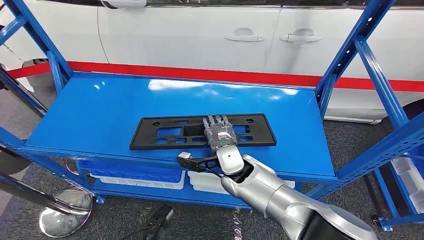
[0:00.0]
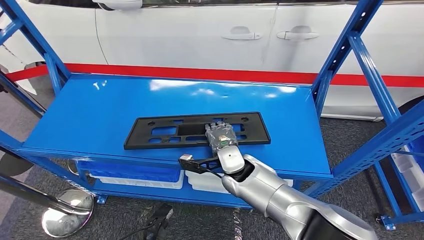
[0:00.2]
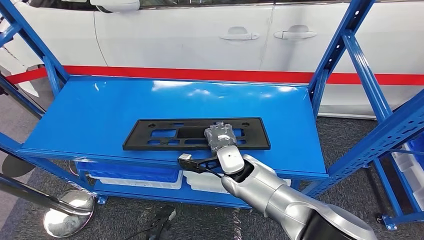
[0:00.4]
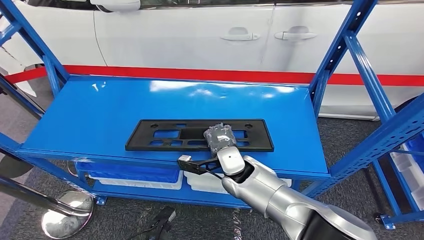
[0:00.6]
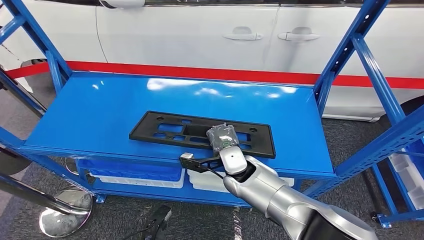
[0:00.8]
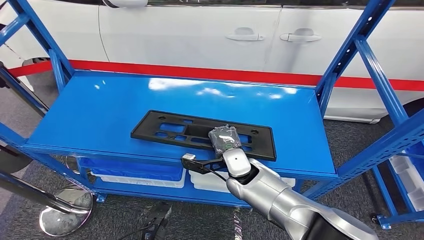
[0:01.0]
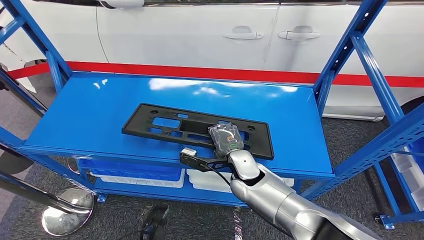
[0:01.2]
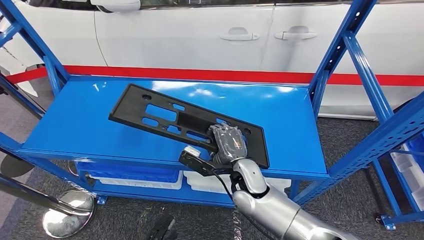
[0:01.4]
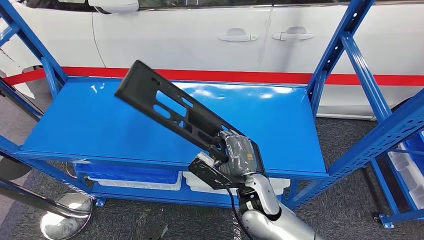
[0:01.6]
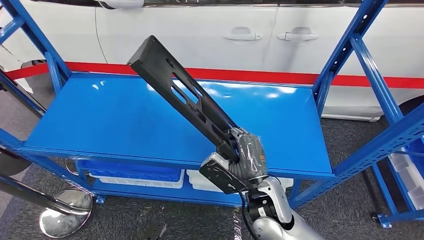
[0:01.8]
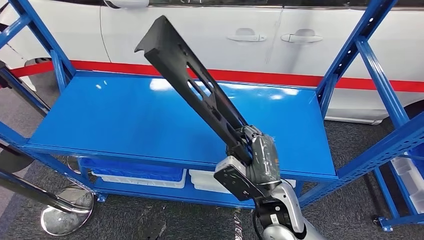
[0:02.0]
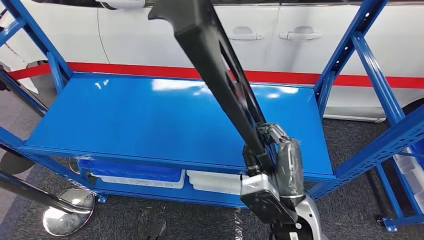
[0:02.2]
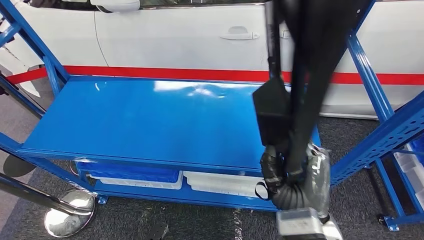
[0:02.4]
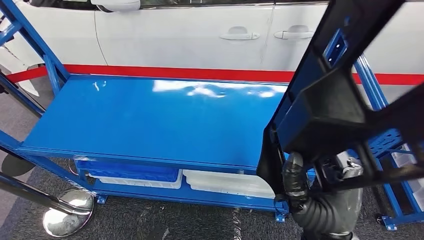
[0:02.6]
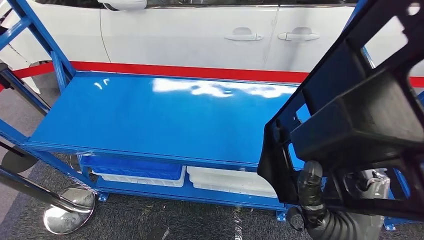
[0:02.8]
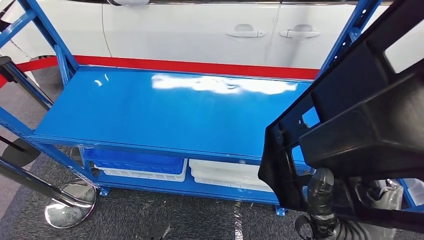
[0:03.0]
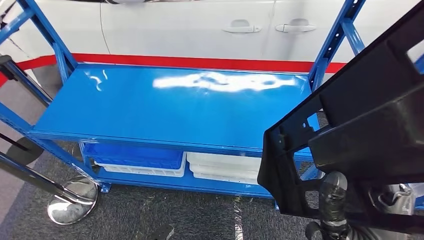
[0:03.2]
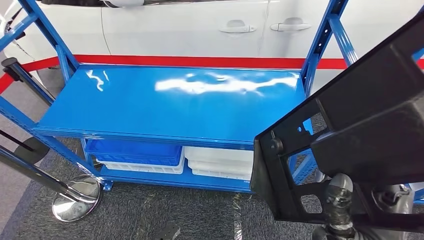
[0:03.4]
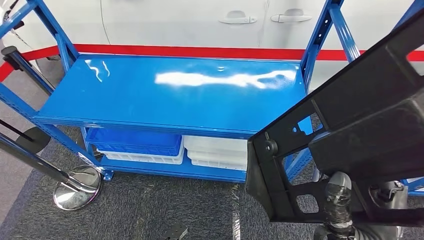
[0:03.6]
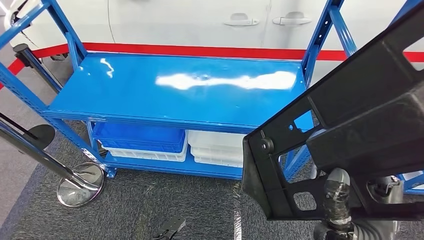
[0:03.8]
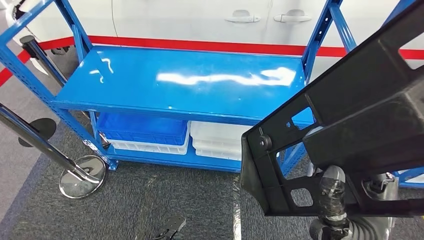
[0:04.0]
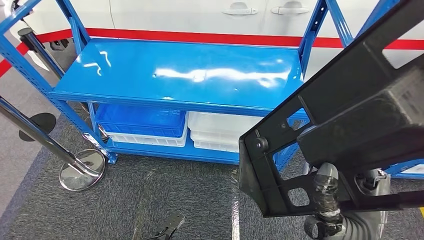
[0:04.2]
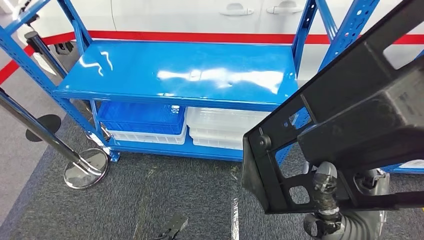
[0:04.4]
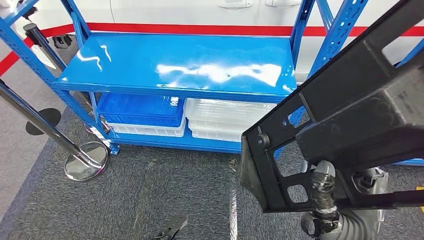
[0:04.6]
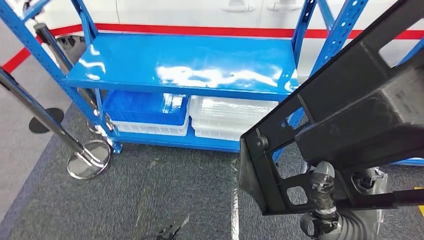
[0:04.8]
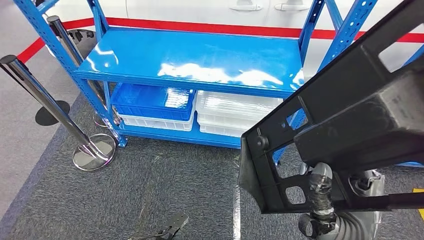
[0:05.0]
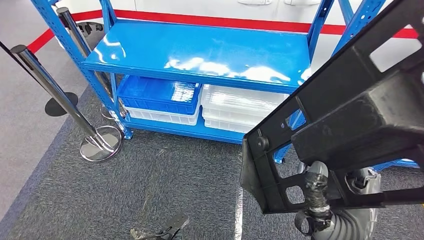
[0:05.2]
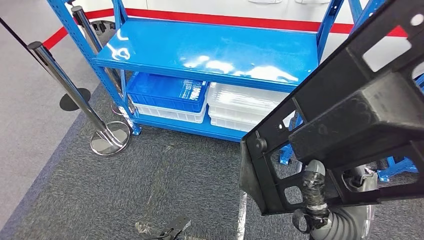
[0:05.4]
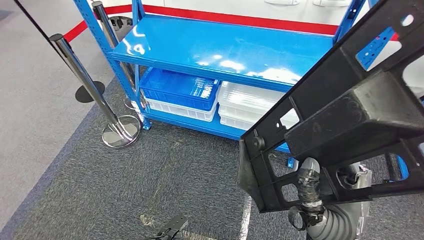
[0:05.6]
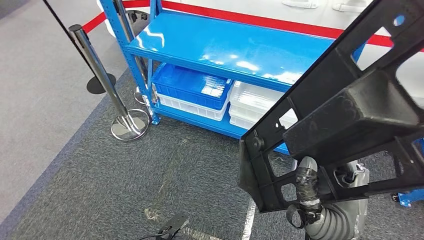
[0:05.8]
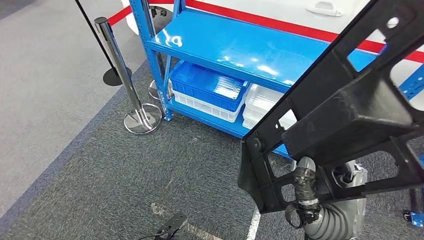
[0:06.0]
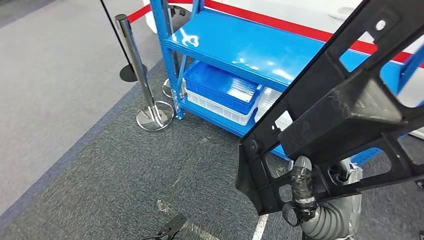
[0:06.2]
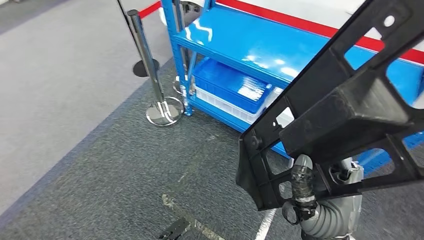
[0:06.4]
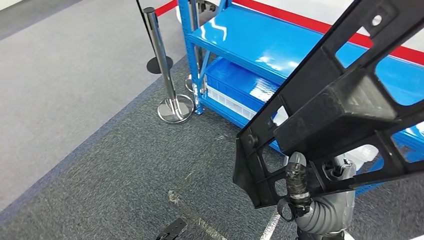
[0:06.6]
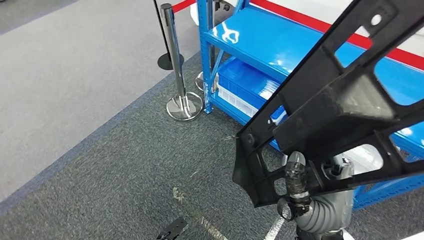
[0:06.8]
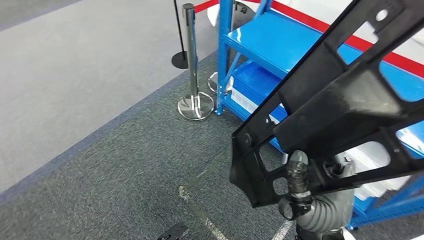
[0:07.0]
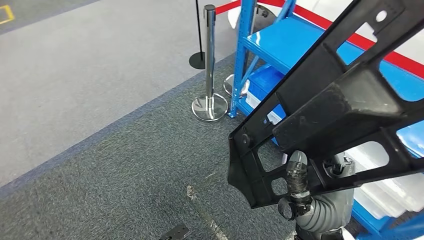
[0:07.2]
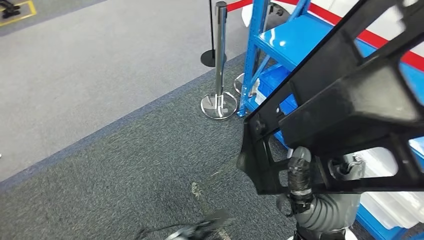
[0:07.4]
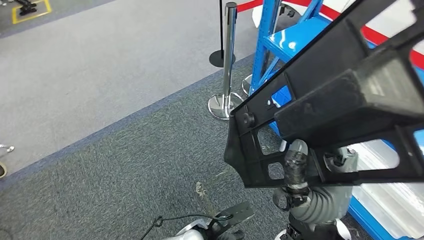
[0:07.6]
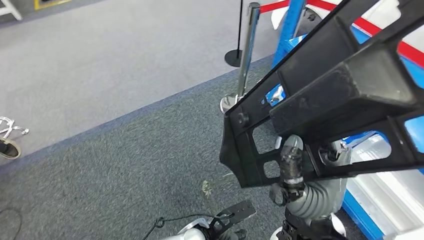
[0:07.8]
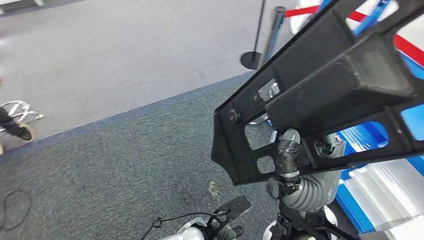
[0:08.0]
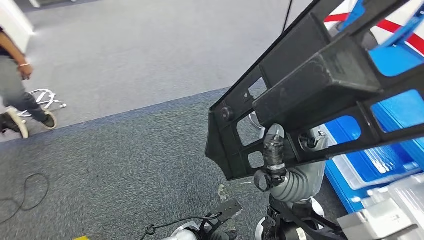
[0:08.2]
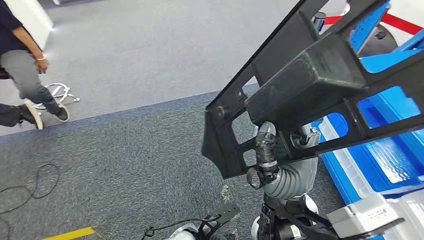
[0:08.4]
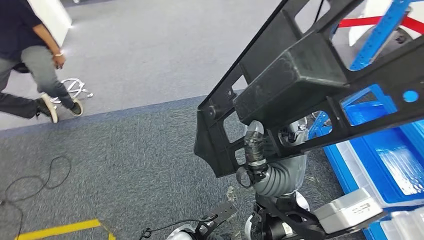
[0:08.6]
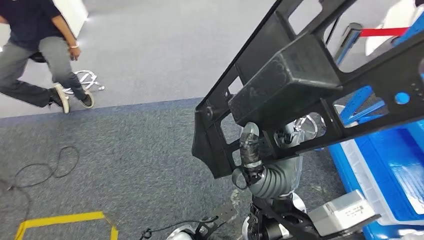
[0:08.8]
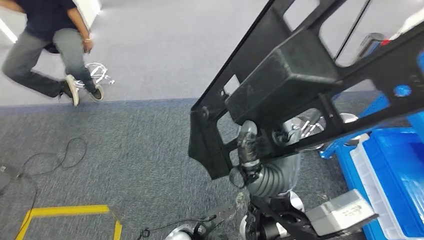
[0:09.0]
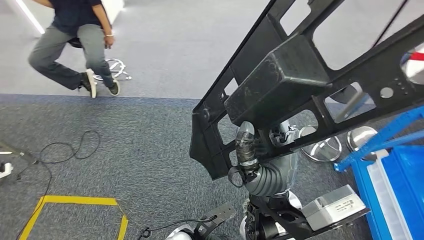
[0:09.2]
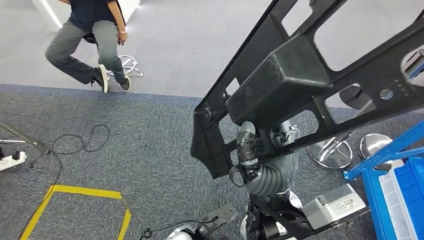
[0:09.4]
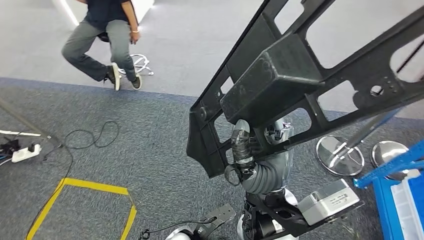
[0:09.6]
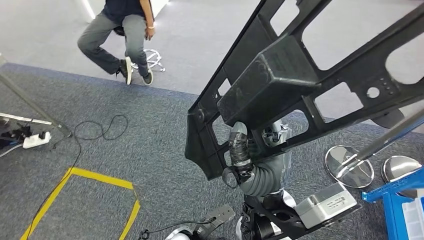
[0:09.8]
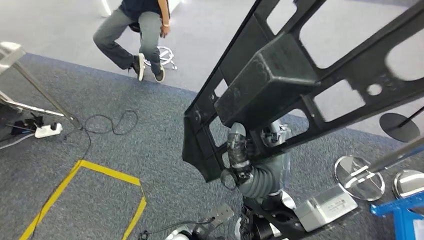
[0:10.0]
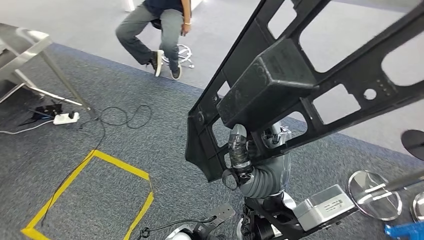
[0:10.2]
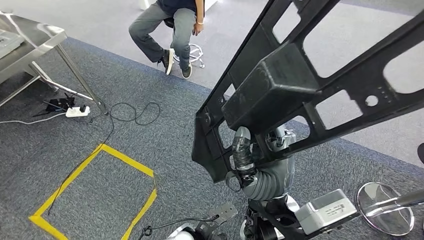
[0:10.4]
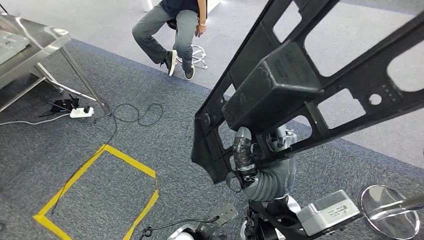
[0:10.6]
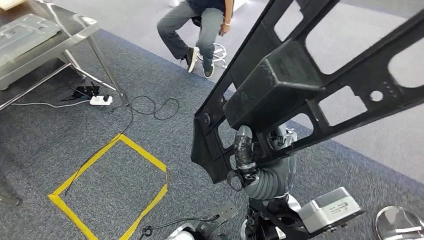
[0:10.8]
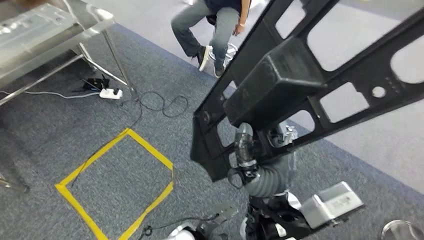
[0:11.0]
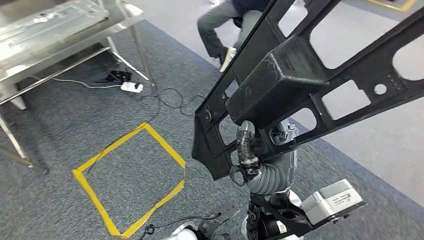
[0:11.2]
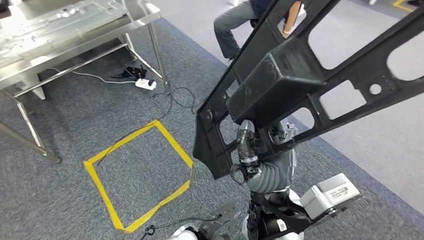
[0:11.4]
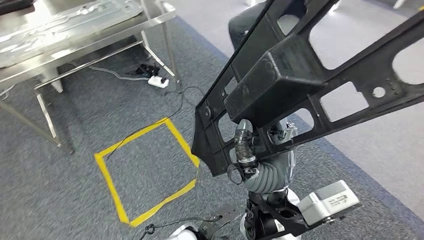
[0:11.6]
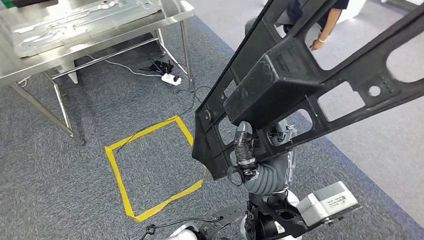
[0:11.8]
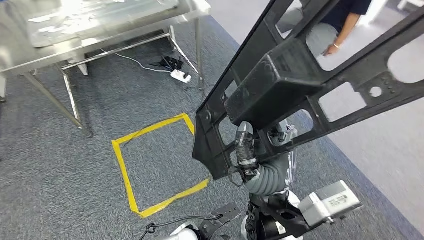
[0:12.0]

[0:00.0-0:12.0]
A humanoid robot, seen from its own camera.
Step, 0:00.0 to 0:03.4: Pick up the large material from the shelf.

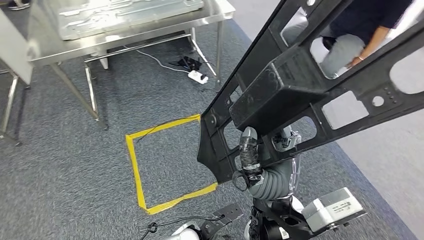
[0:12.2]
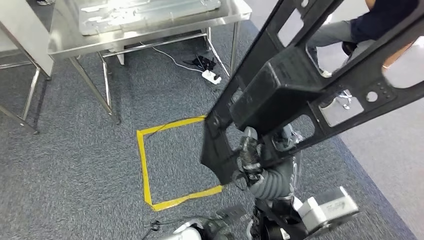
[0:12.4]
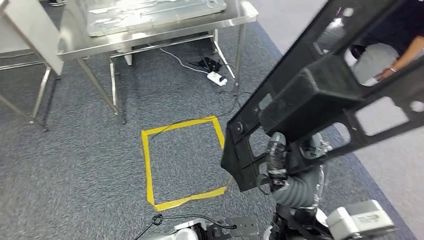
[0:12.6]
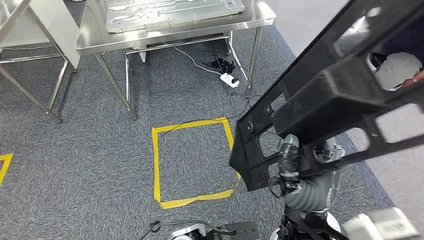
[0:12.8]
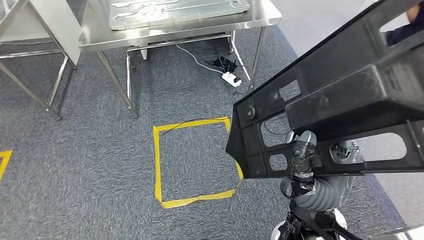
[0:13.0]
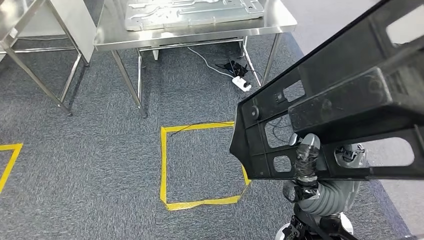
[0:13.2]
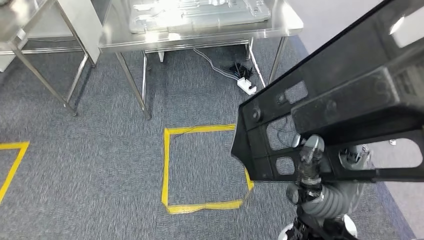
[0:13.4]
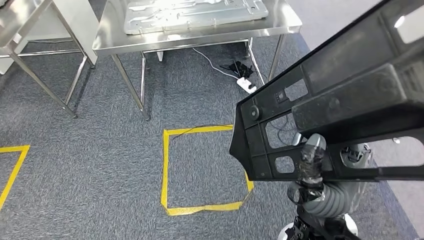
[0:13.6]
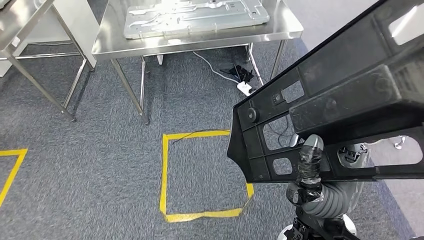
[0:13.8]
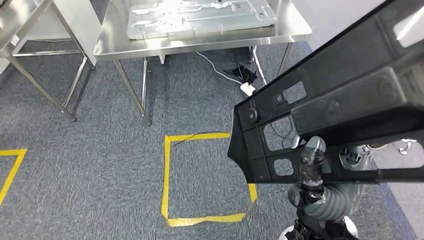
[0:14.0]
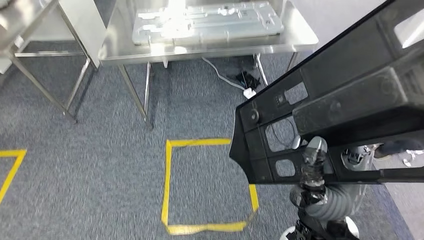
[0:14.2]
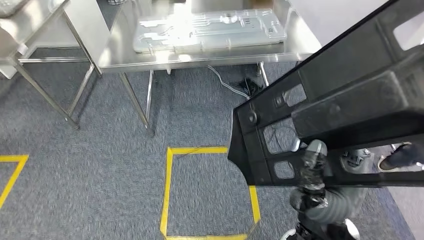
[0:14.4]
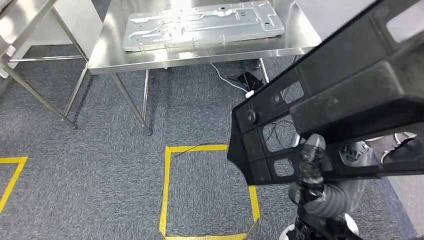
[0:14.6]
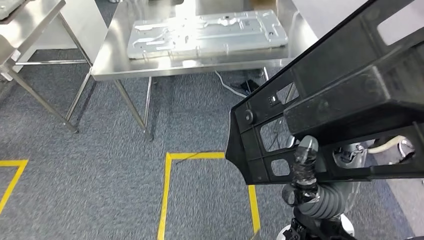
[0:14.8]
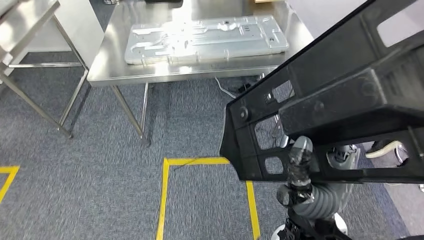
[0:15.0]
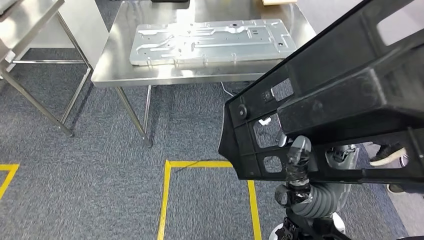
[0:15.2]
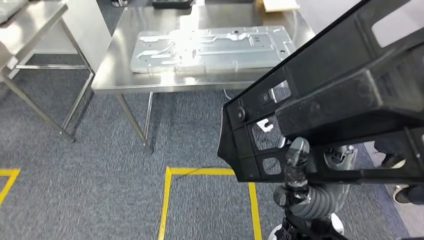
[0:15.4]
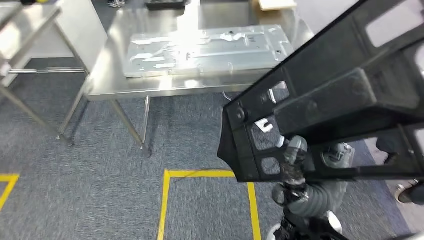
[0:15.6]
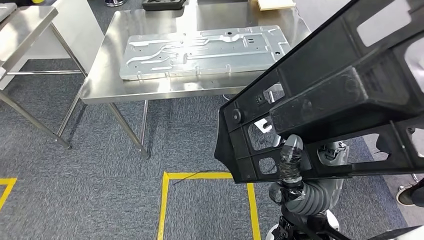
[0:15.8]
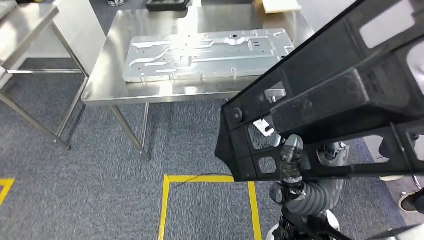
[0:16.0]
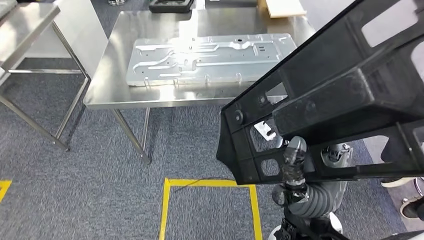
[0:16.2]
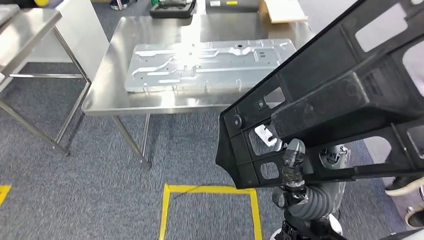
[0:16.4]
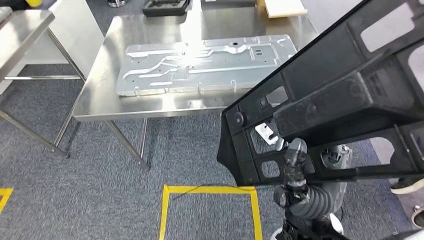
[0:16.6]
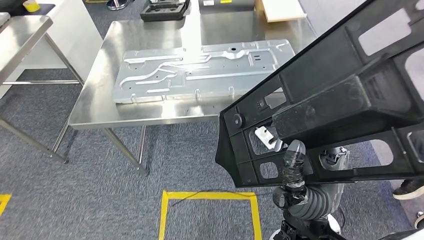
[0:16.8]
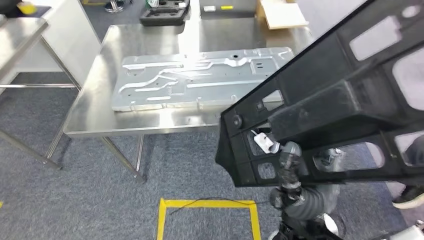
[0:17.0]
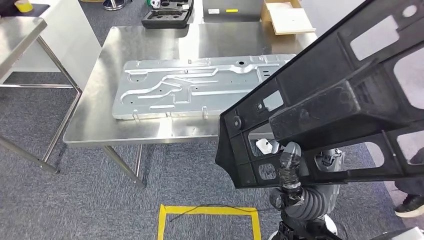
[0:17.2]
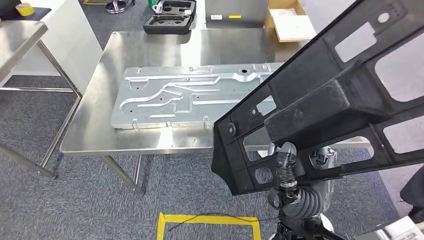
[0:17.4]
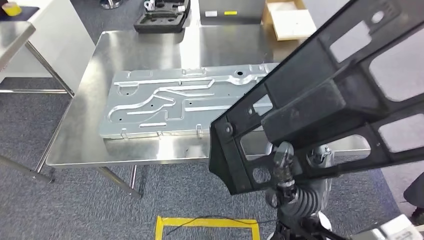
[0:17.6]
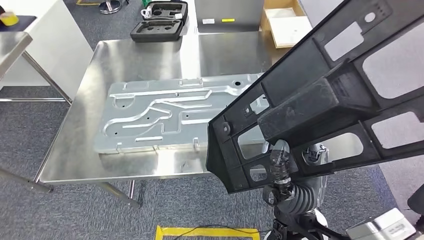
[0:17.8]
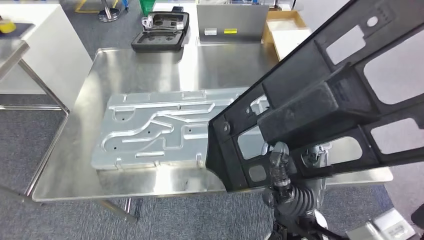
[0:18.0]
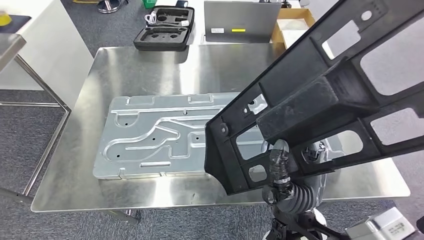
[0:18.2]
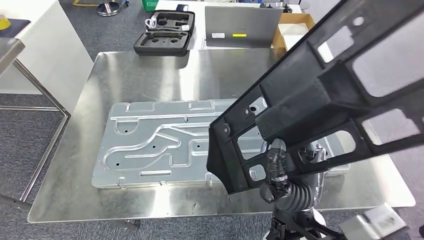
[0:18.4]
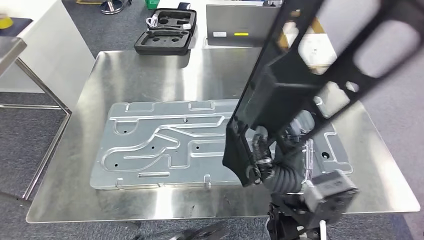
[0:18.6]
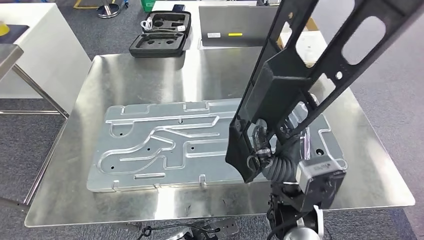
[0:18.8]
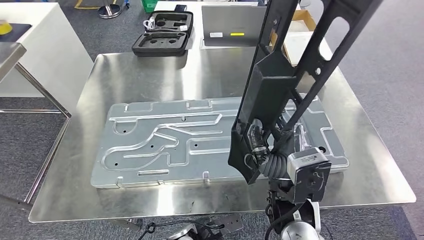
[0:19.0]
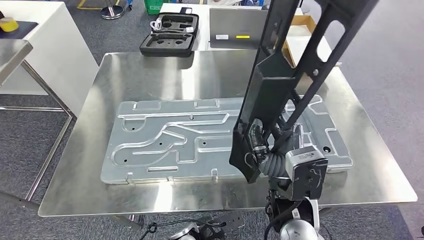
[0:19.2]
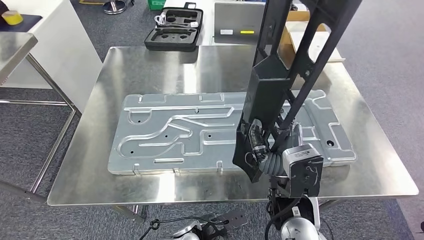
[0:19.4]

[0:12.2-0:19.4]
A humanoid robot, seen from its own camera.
Step, 0:12.2 to 0:15.8: Move the large material to the workbench.
